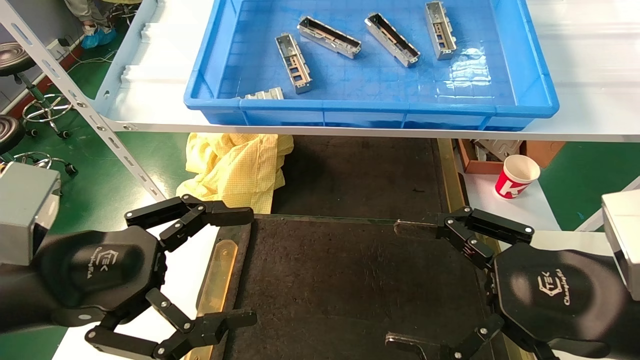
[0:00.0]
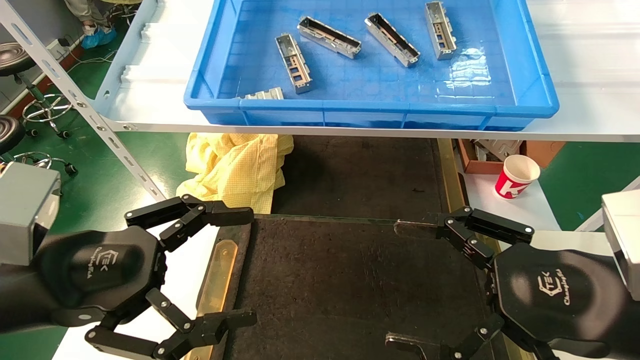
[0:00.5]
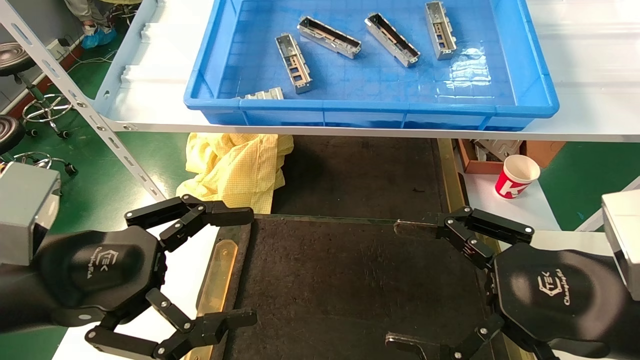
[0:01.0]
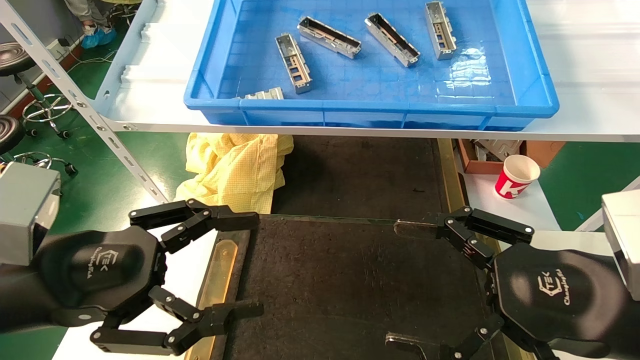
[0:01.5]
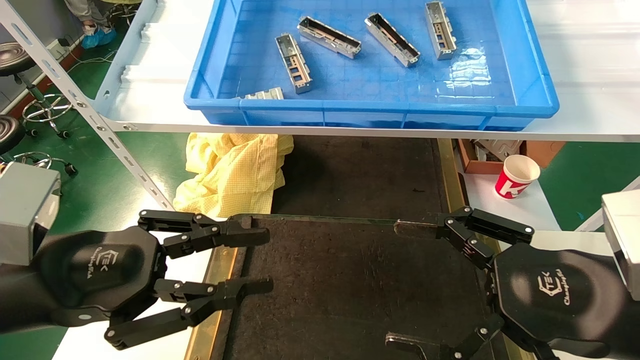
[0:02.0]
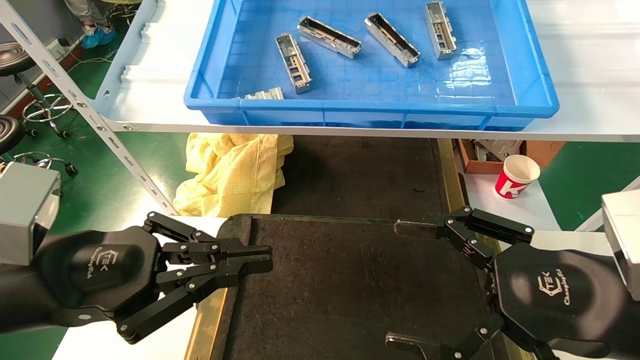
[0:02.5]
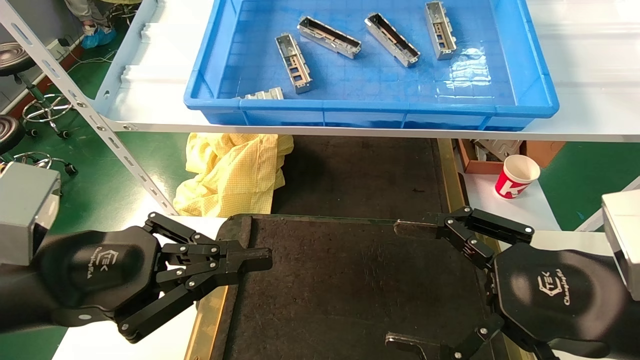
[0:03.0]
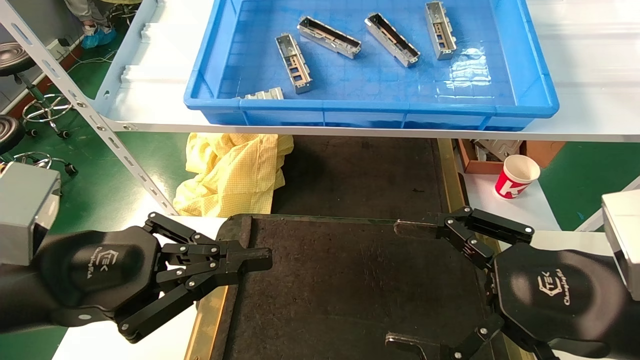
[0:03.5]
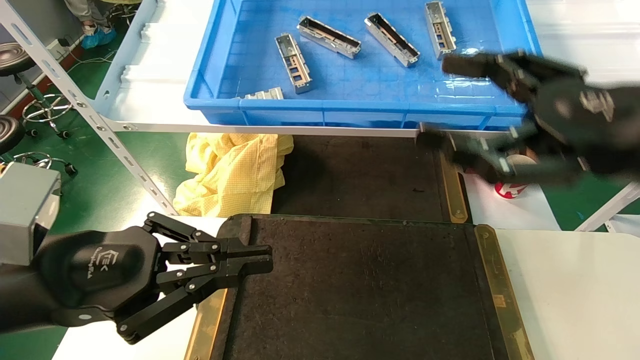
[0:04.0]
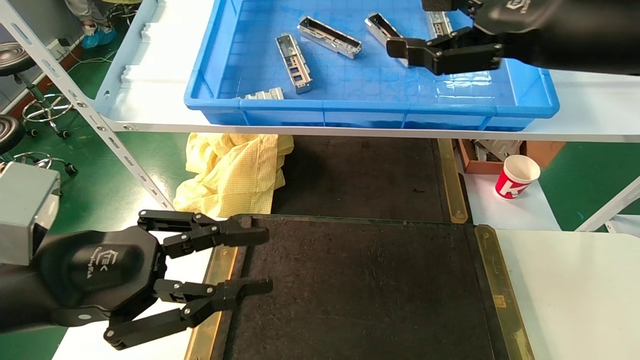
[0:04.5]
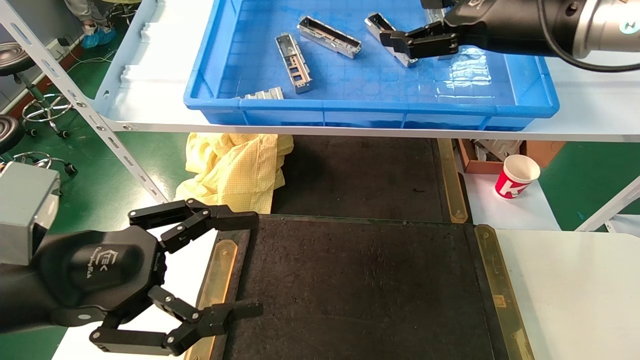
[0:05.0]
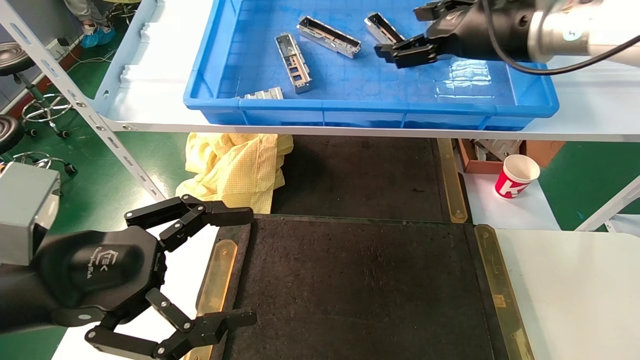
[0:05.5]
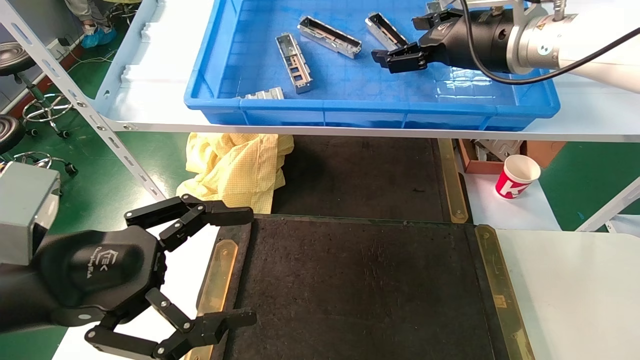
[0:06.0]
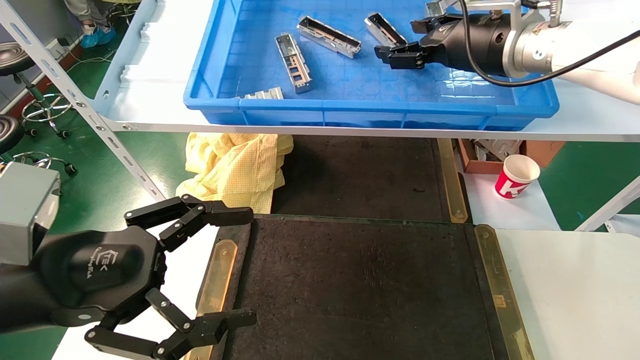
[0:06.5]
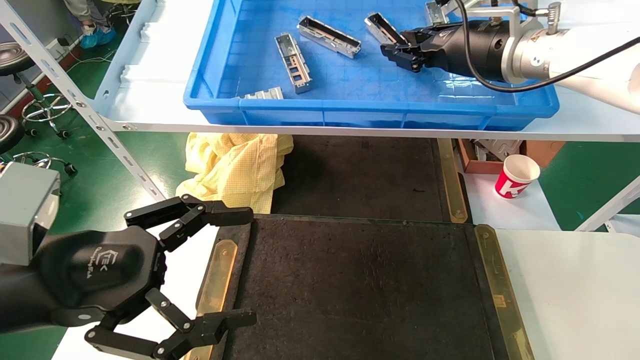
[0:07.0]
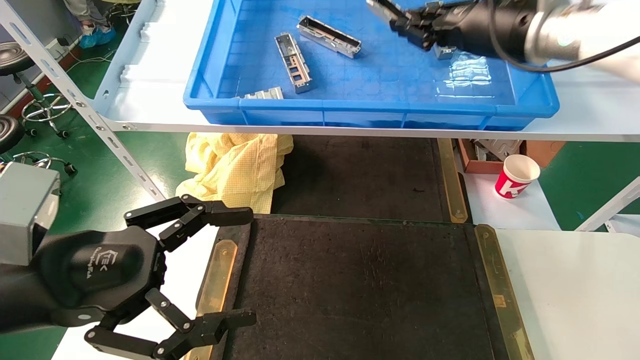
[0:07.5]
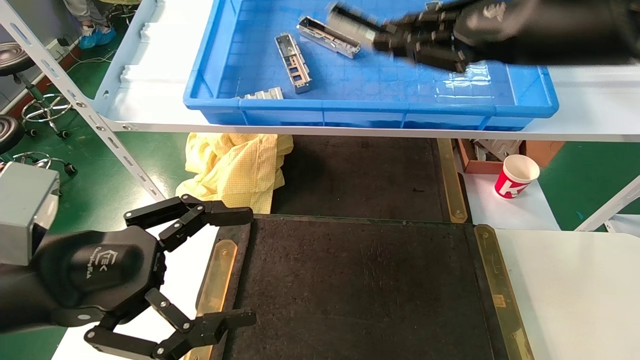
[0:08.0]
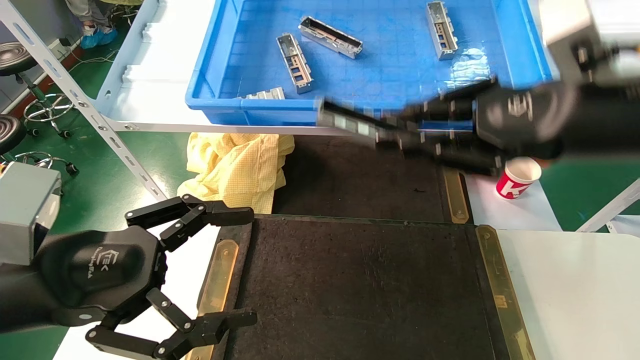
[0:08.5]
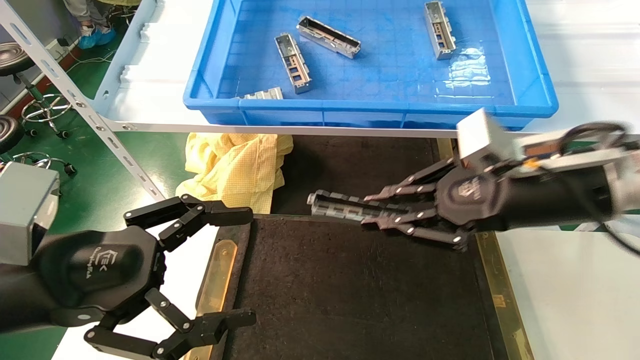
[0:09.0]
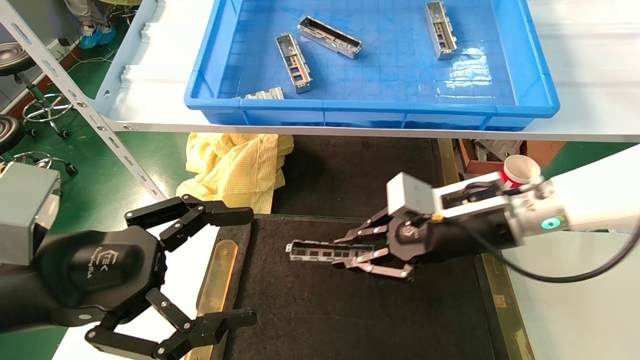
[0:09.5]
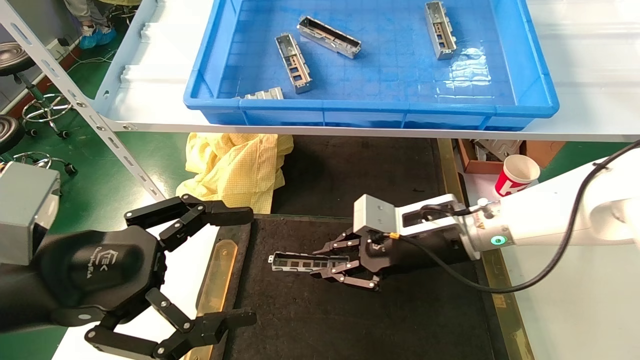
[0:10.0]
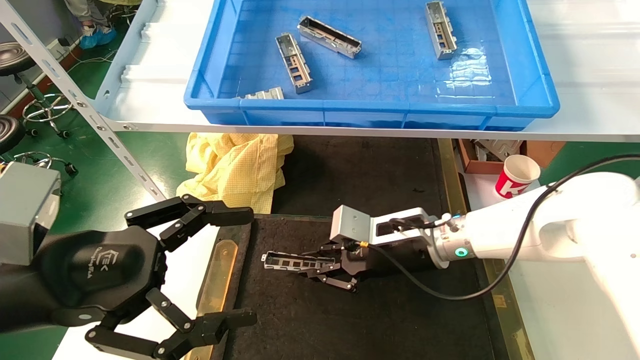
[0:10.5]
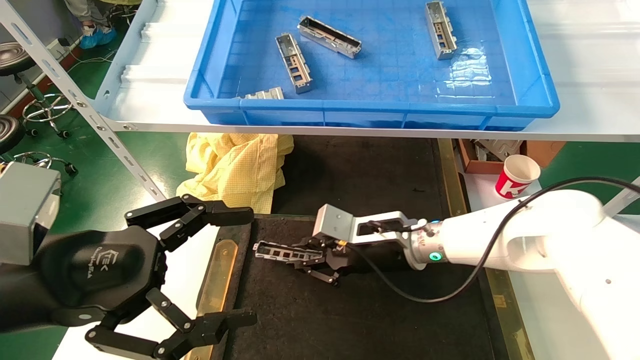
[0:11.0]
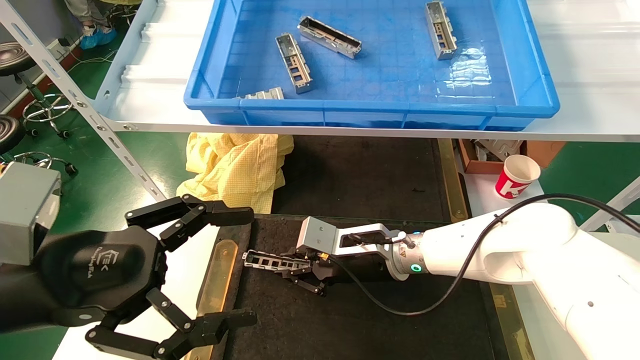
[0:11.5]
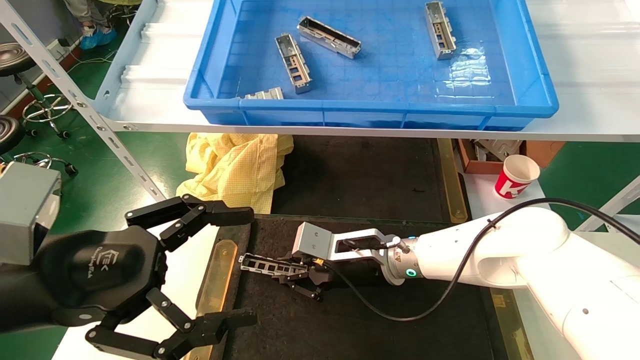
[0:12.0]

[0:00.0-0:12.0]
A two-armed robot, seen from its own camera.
Task of the whole recording: grasp the part and place them on the black container.
Step, 0:04.0 to 0:07.5: Pick up and lift the front USB bracket from the feeding area.
0:00.0 to 0:02.0: The left gripper closes.
0:02.0 to 0:04.0: The right gripper goes about 10 cm upward. The left gripper closes its fingers.
0:04.0 to 0:06.0: The left gripper opens; the right gripper heads forward and upward, covering about 20 cm.
0:06.0 to 0:08.0: The right gripper travels backward by some 10 cm, and closes.
0:08.0 to 0:10.0: The right gripper goes some 25 cm downward and to the left.
0:10.0 to 0:12.0: The right gripper shifts approximately 10 cm to the left and downward.

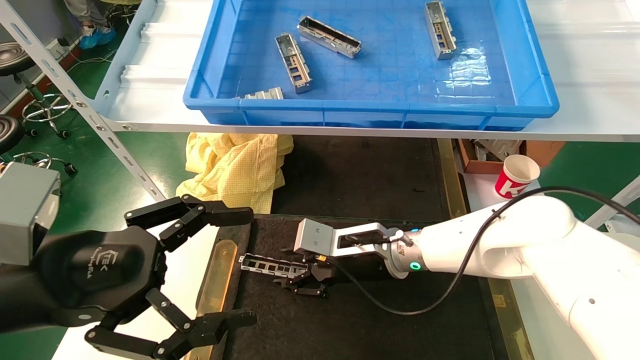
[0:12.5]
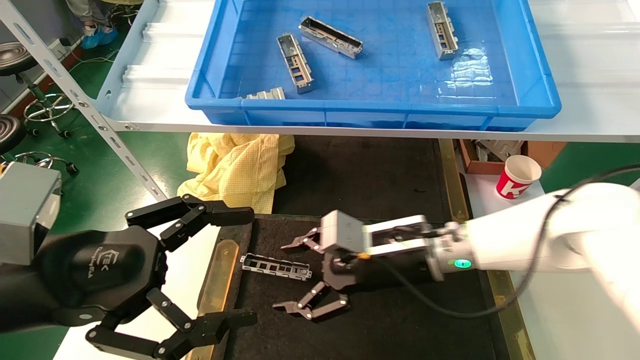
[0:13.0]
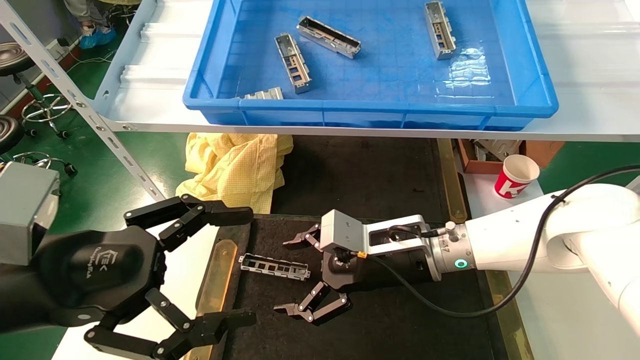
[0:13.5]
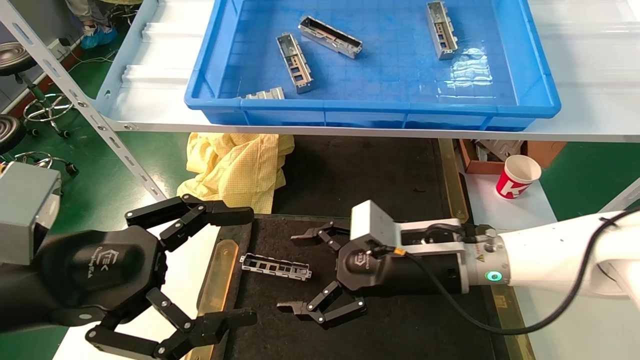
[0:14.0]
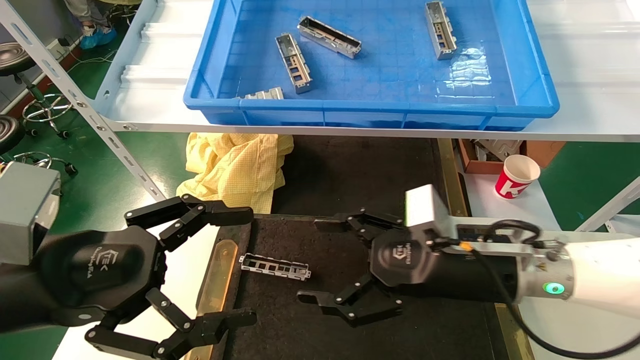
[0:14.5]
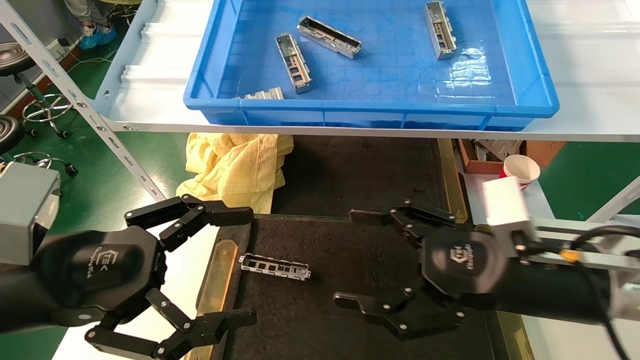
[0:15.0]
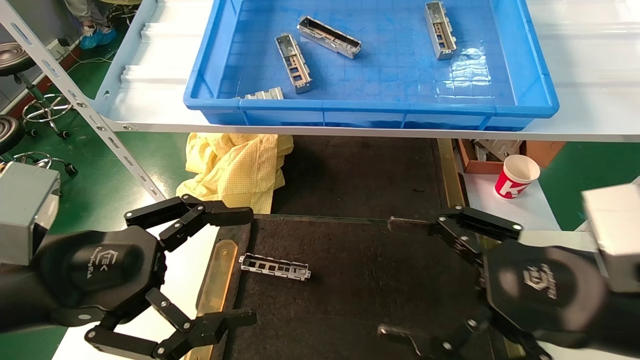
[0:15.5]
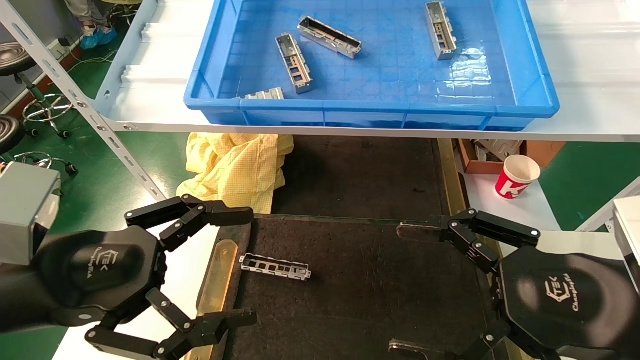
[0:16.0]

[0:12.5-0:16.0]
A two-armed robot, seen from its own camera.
Task of the whole recording: grasp the part and place them on the black container.
0:12.5 to 0:14.5: The right gripper moves to the right and backward, some 15 cm, and opens.
0:14.5 to 0:16.0: The right gripper is displaced backward and to the right by roughly 15 cm.

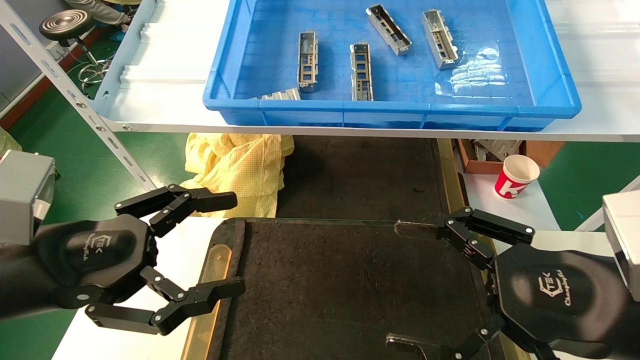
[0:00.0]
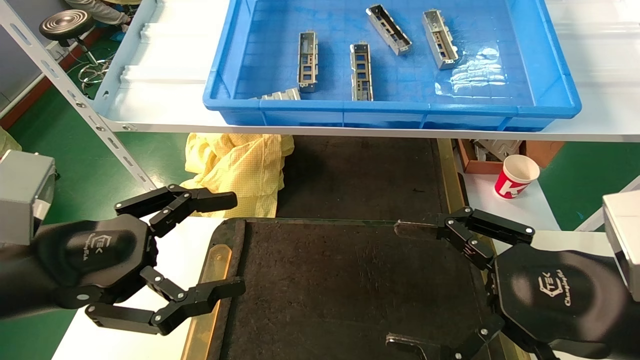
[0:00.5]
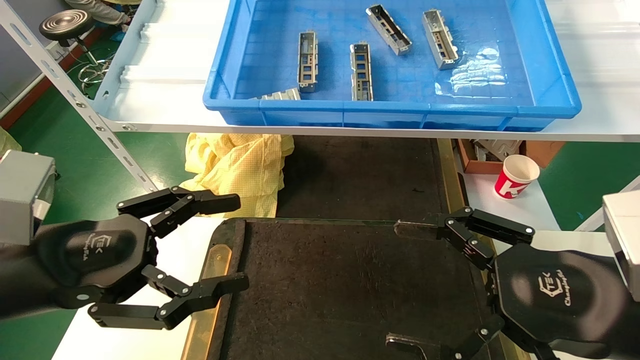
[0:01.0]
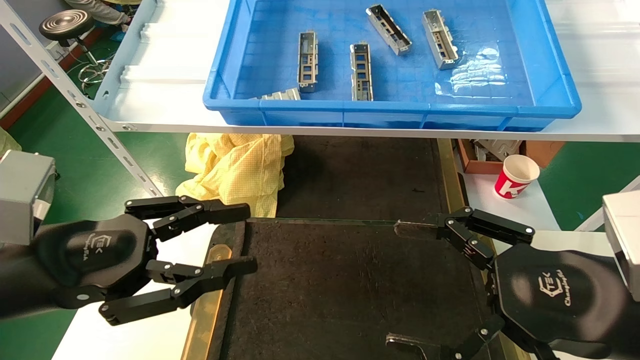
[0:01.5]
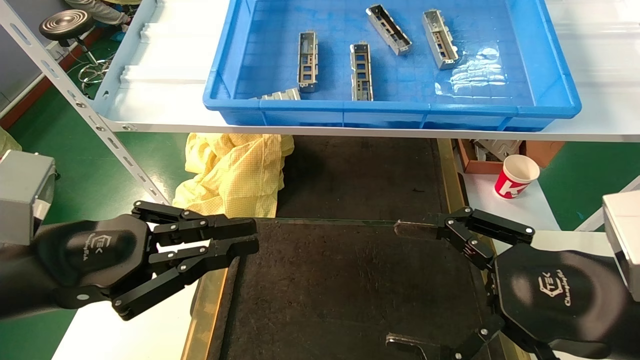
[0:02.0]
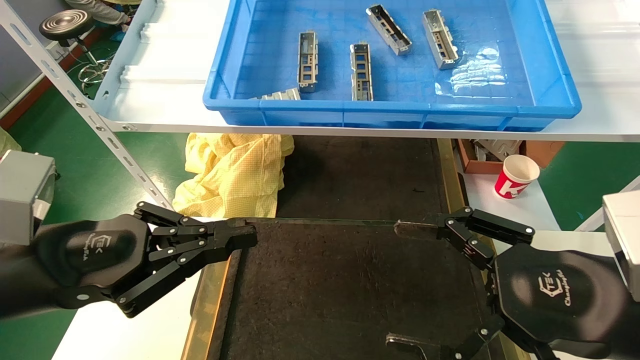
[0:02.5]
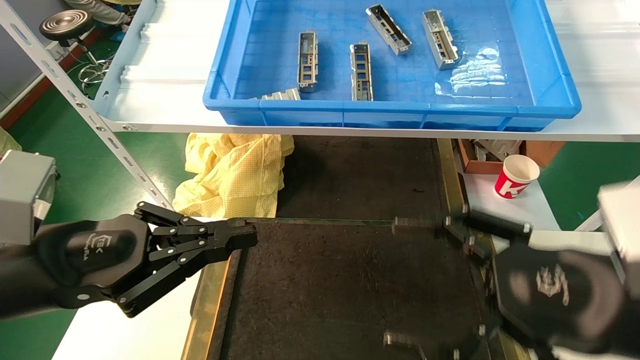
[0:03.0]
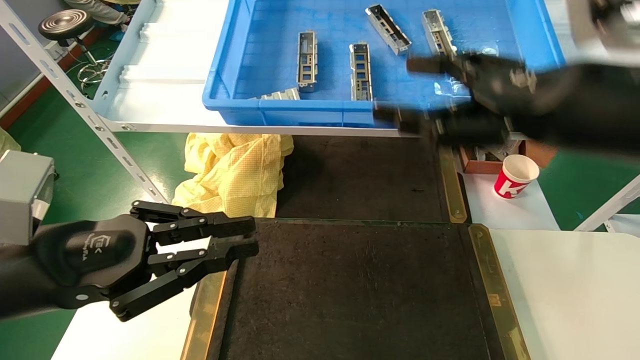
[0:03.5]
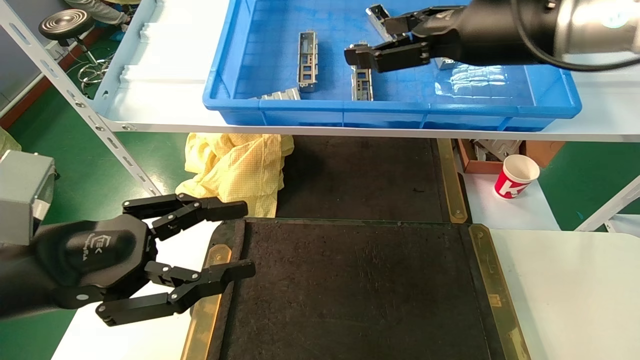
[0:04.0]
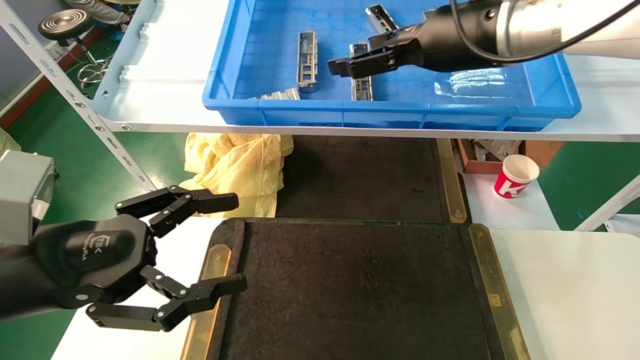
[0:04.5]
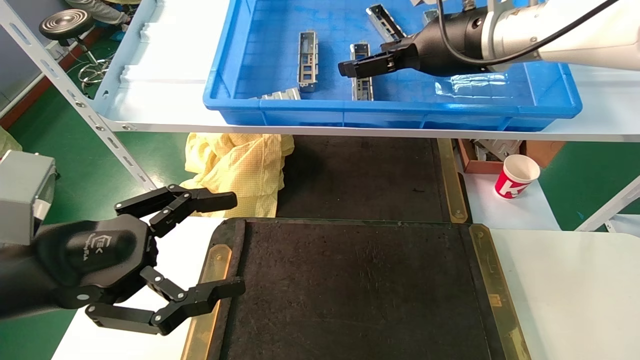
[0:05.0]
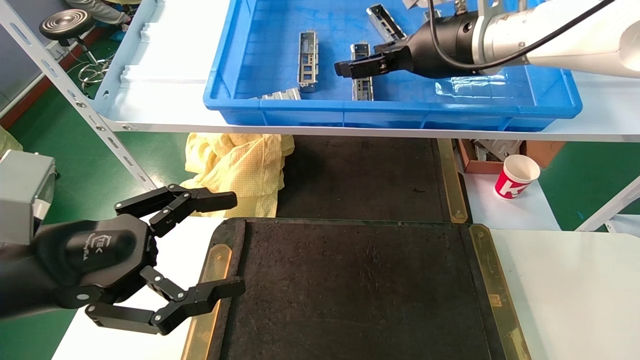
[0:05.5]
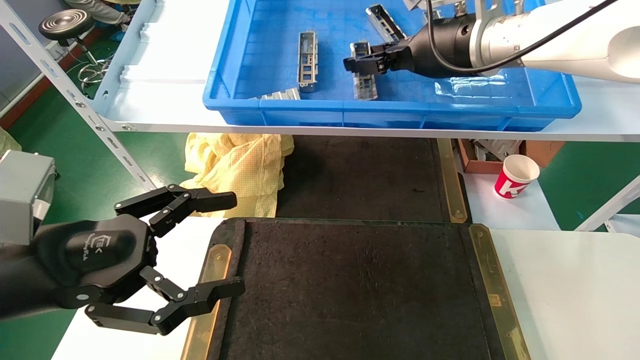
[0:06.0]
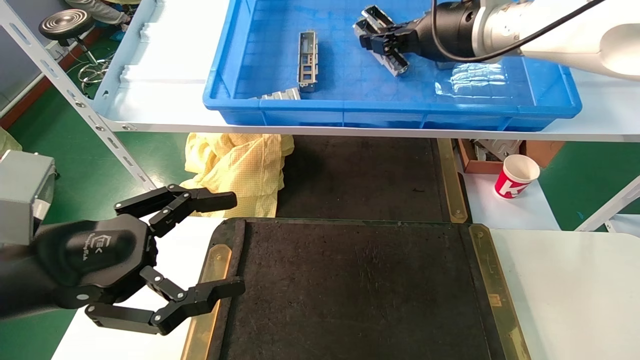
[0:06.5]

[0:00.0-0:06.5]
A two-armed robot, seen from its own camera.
Task of the whole recording: grasp the part and place them on the black container.
0:00.0 to 0:02.0: The left gripper closes up.
0:02.0 to 0:04.5: The left gripper opens up. The right gripper is displaced upward, forward and to the left by some 30 cm.
0:04.5 to 0:06.5: The right gripper closes its fingers.
